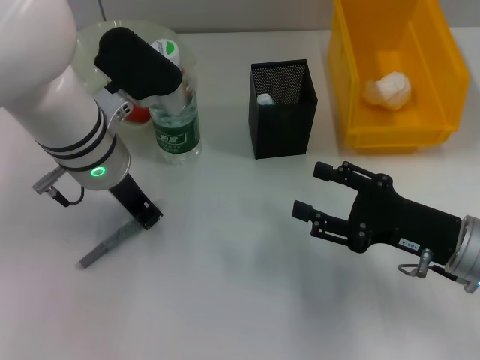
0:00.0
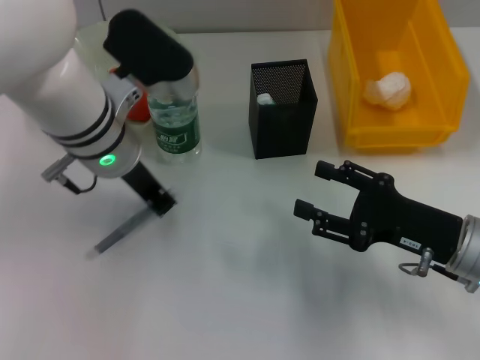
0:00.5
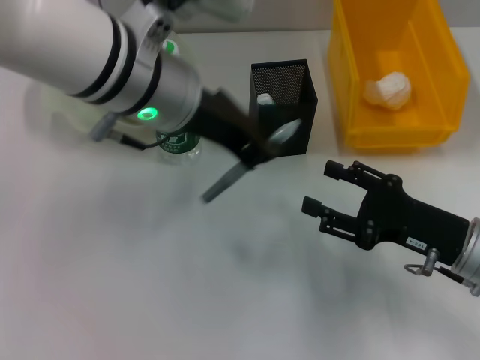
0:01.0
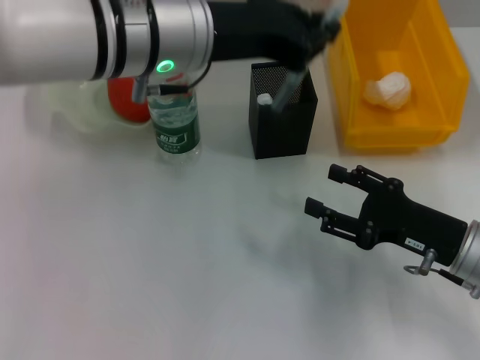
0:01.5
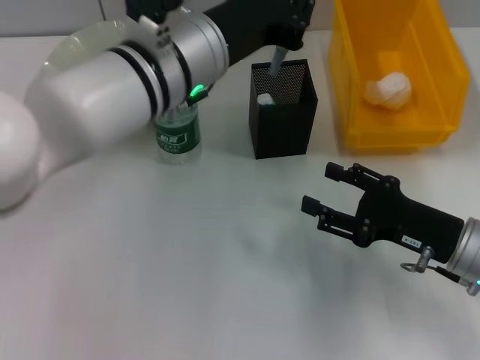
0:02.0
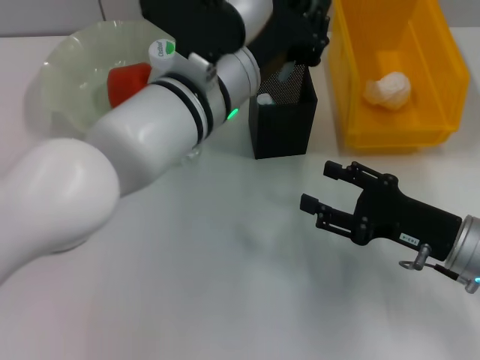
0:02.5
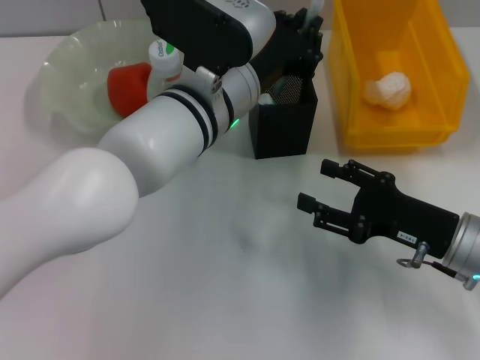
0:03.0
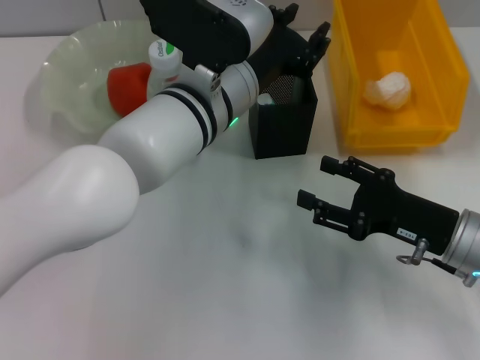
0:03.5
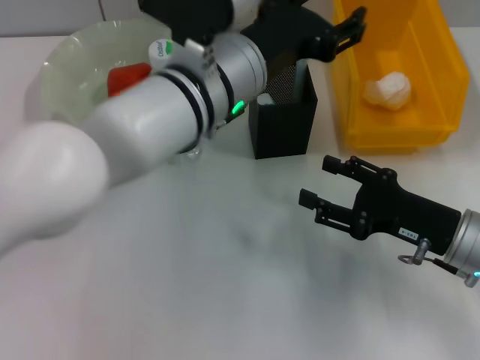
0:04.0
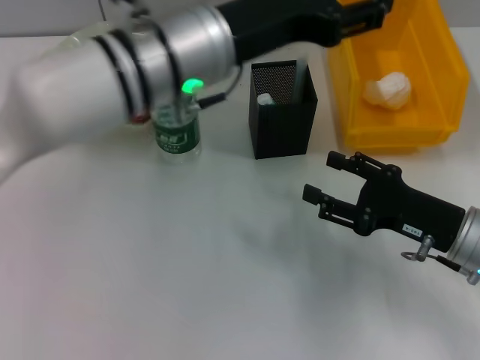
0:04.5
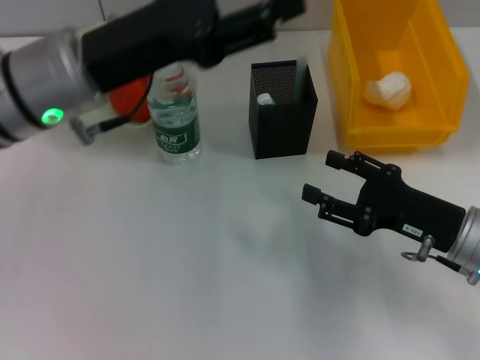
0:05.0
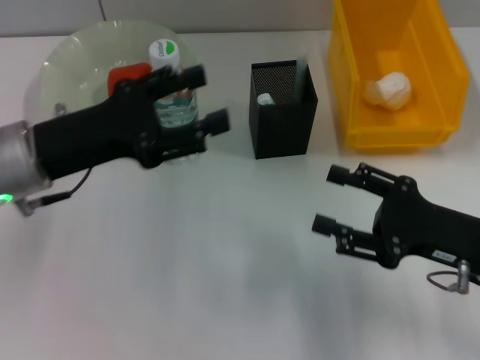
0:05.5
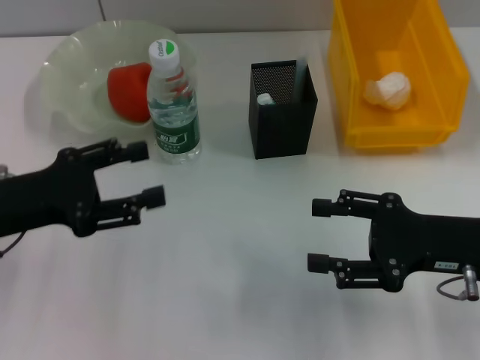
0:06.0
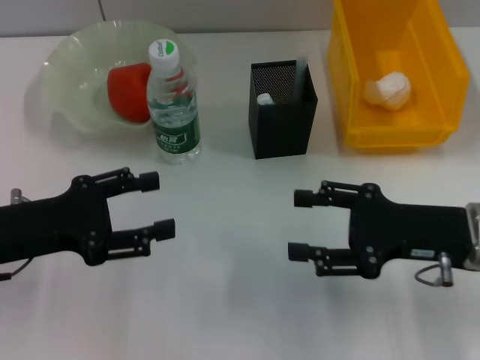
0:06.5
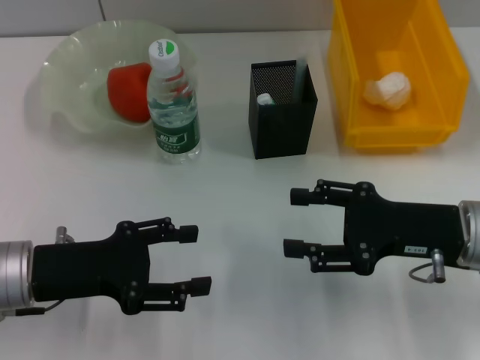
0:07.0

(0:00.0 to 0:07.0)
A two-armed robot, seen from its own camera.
Step, 0:00.0 - 0:03.5: Place the gray glue into the pen holder with the left hand.
0:00.0 - 0:02.0: The left gripper heads to the right, covering some 5 cm.
0:03.5 - 0:05.0: The left gripper moves to the left, approximately 15 cm, and opens.
0:05.0 - 0:07.0: The left gripper shifts about 15 cm downward, backward and to the left.
